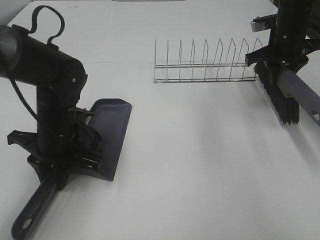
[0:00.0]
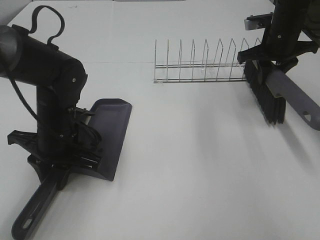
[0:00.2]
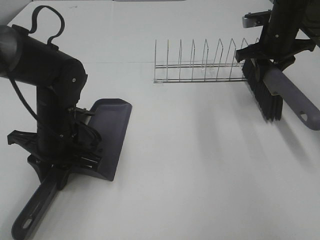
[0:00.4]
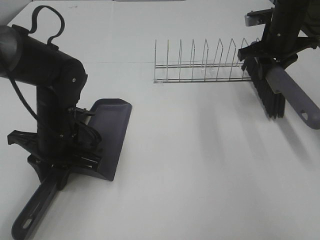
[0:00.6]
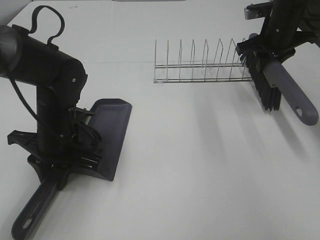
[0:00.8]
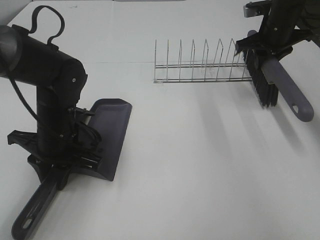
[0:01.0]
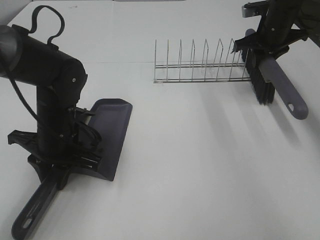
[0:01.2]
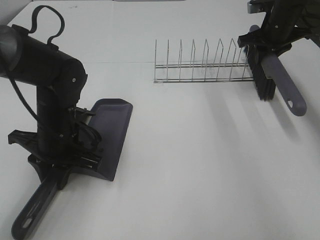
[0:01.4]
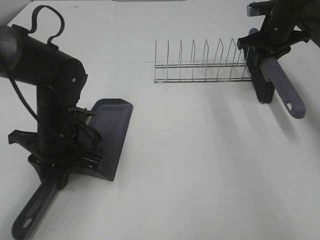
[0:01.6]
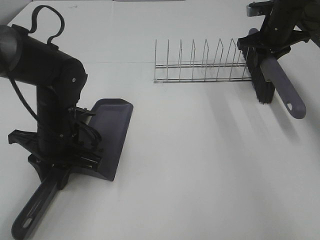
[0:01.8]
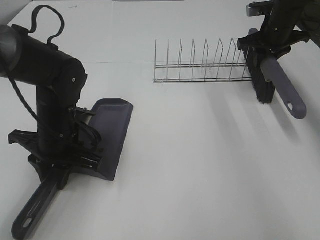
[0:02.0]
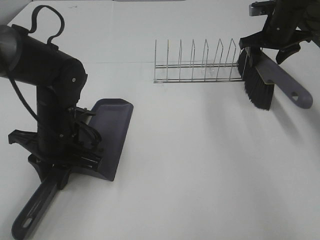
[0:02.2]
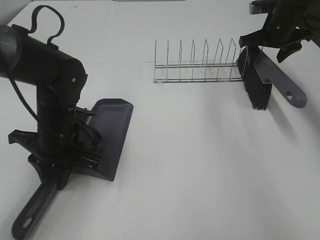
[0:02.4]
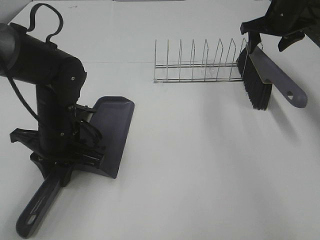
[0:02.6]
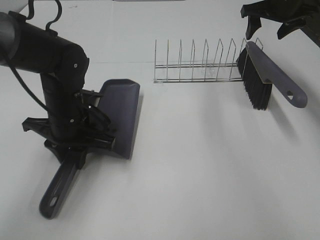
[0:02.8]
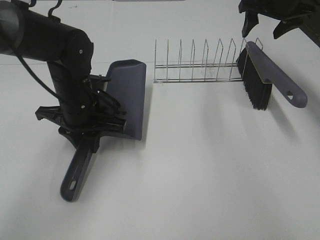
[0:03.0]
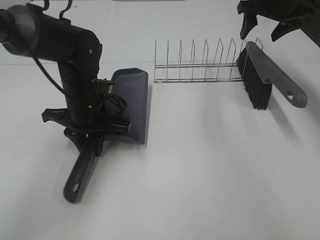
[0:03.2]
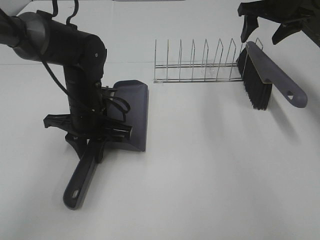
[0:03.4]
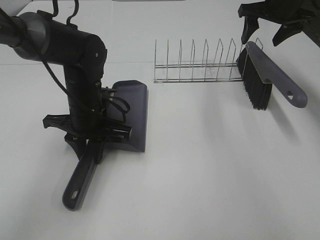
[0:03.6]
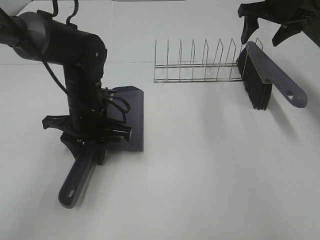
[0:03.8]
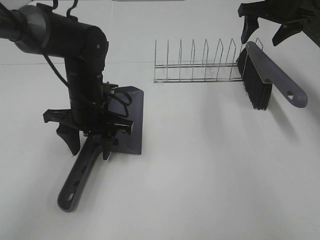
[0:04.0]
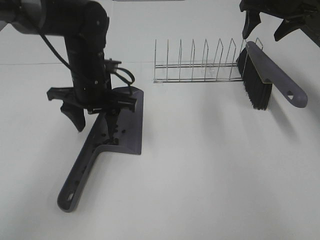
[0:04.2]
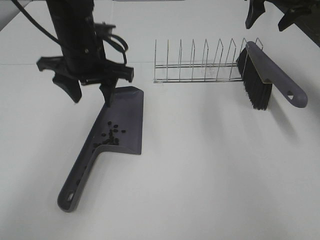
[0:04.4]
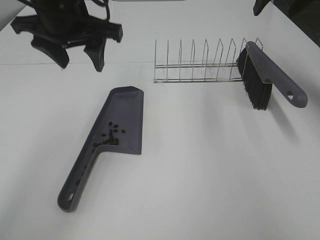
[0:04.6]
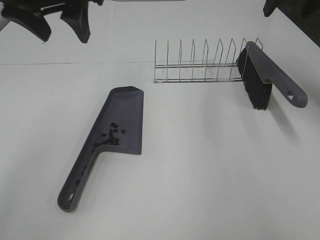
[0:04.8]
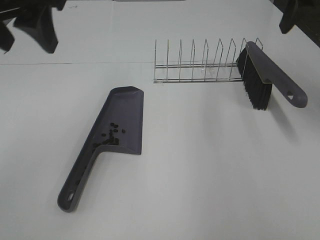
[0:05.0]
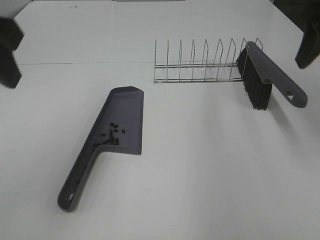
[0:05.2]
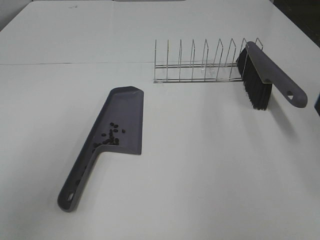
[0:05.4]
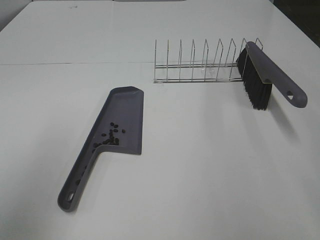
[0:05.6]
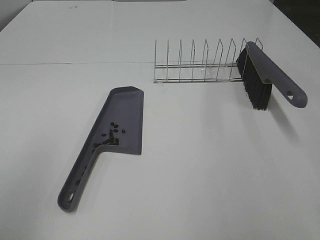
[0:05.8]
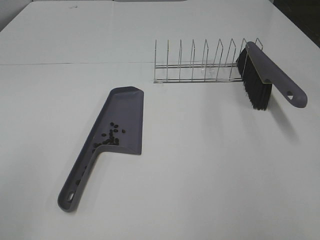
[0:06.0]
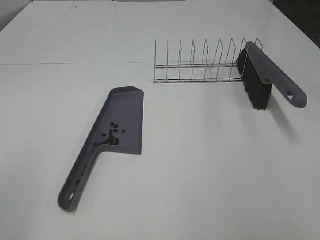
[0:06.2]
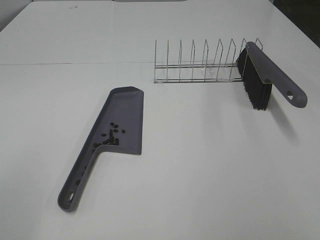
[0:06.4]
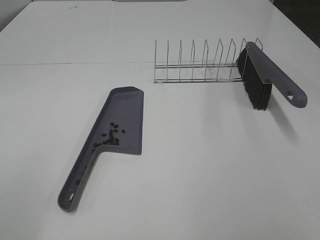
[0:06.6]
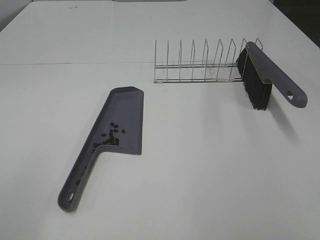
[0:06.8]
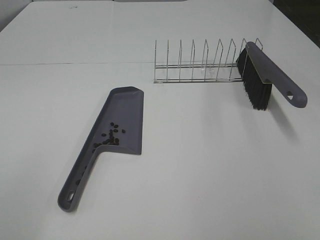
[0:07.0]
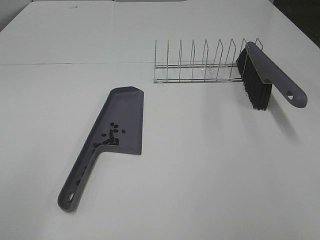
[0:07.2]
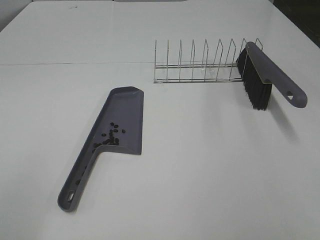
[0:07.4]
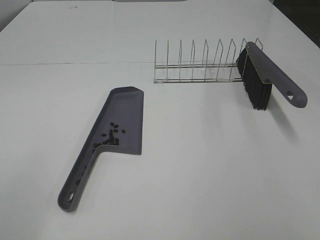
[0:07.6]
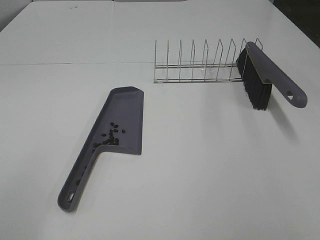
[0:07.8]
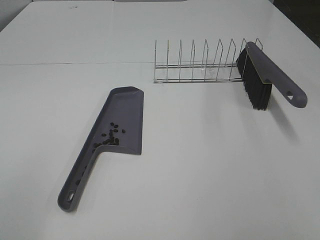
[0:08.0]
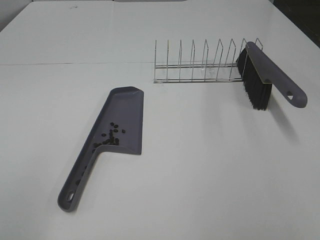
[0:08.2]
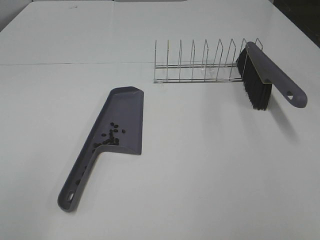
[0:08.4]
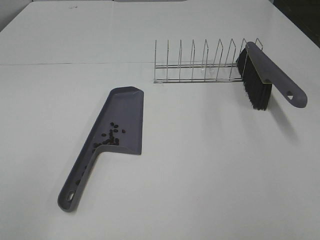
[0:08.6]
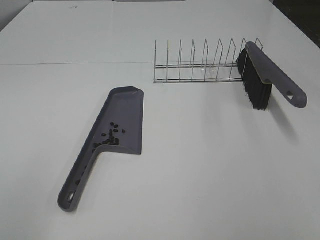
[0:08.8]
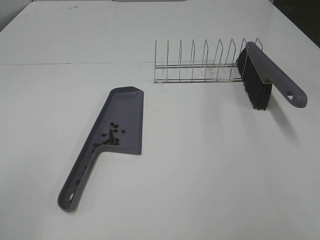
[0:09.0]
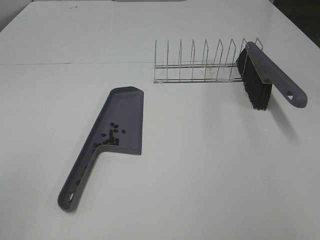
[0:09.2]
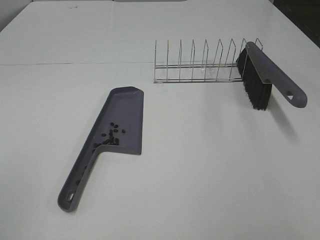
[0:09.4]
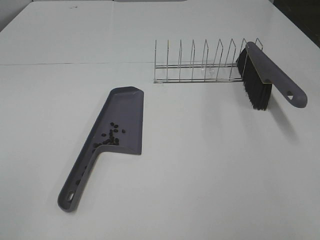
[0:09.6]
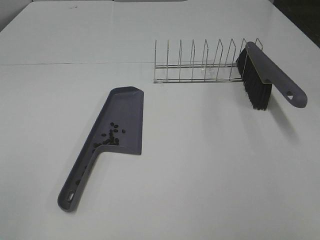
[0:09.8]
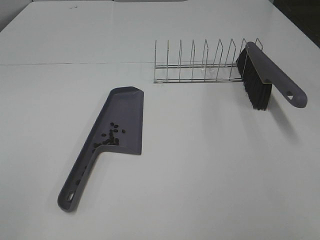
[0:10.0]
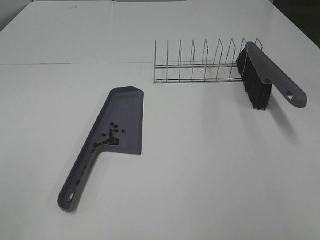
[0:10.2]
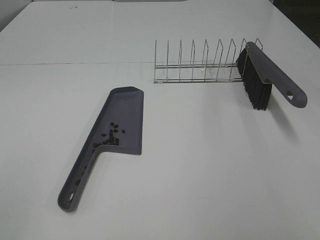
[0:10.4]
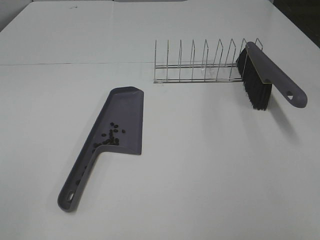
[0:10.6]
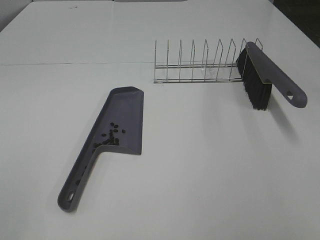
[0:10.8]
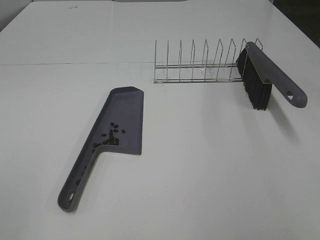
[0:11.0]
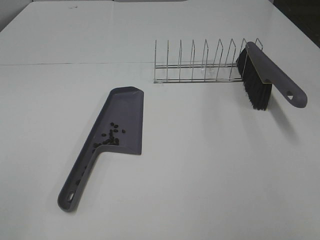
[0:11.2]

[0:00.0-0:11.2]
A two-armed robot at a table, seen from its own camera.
Task of the whole recording: Sweep Coffee Bean.
Step, 0:00.0 to 0:02.4: Right hand:place the broom on the rack.
Step, 0:02.6 to 0:04.0: Left hand:place the dustpan on the table.
0:00.0 to 0:01.6: The right gripper goes some 5 cm forward.
0:01.6 to 0:03.2: The right gripper heads upward, covering approximately 5 cm, and opens. Meanwhile the left gripper shifts by roughly 5 cm.
0:03.2 to 0:04.8: The right gripper is displaced upward and backward by roughly 15 cm. Meanwhile the left gripper goes roughly 25 cm upward, and opens its fingers.
0:04.8 to 0:06.4: The left gripper shifts about 35 cm backward and to the left; the right gripper moves backward, approximately 40 cm.
0:09.6 to 0:11.2: Neither gripper changes place.
